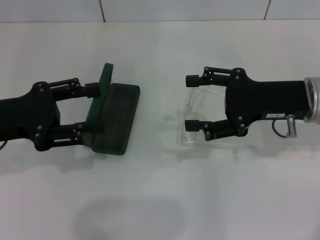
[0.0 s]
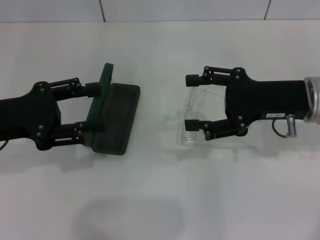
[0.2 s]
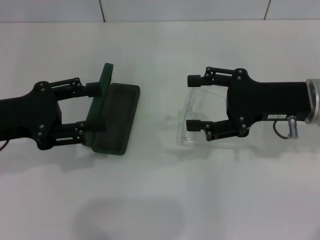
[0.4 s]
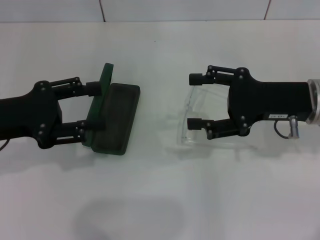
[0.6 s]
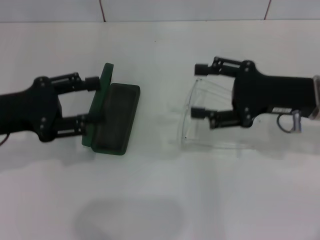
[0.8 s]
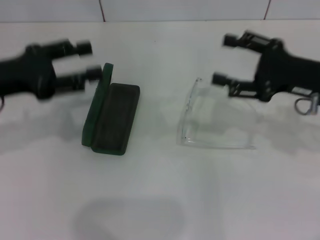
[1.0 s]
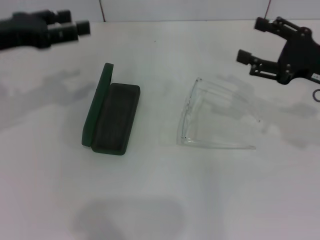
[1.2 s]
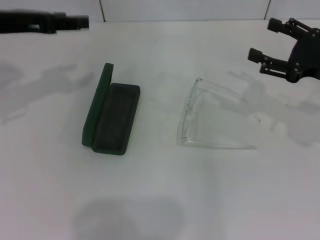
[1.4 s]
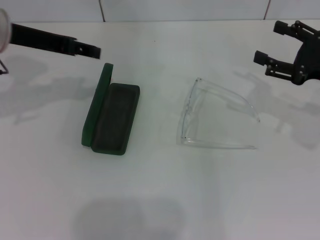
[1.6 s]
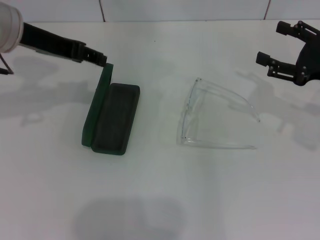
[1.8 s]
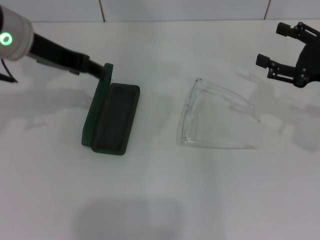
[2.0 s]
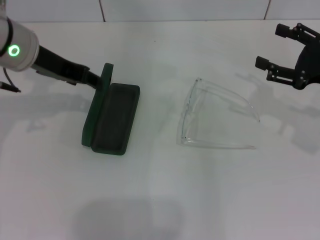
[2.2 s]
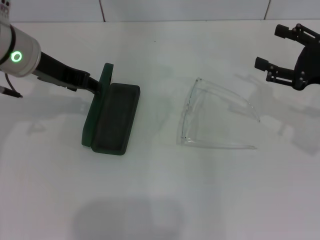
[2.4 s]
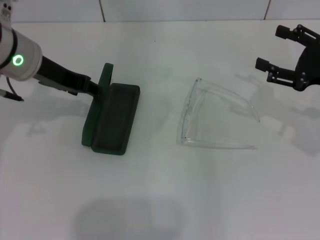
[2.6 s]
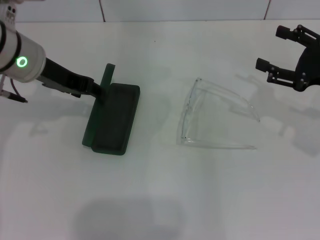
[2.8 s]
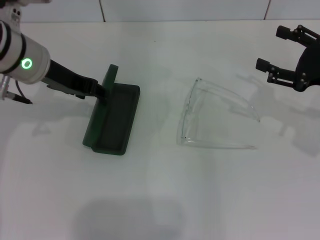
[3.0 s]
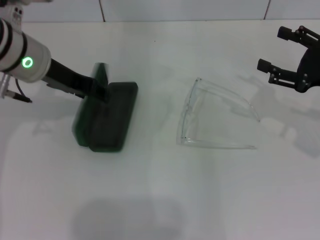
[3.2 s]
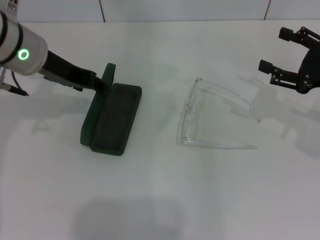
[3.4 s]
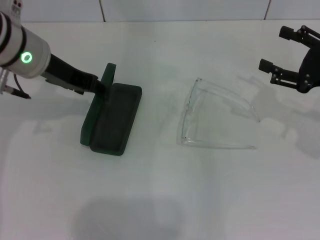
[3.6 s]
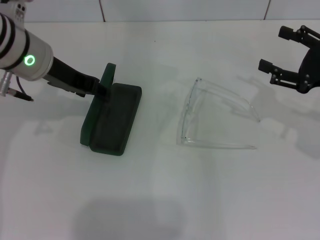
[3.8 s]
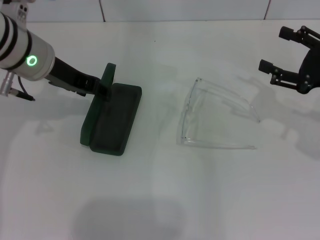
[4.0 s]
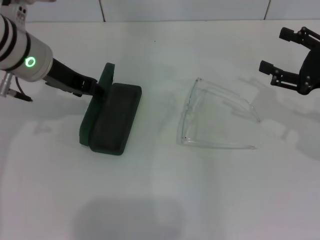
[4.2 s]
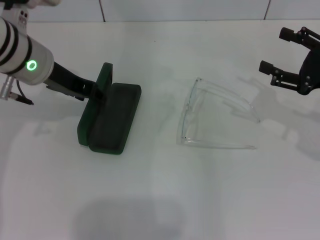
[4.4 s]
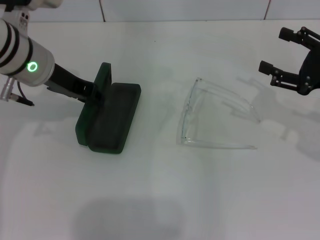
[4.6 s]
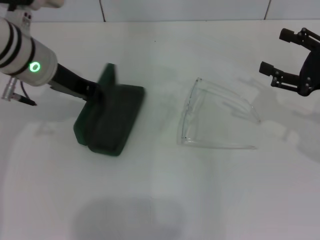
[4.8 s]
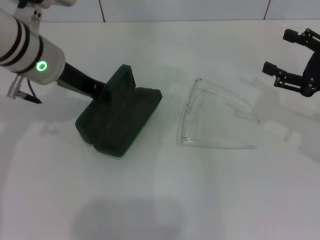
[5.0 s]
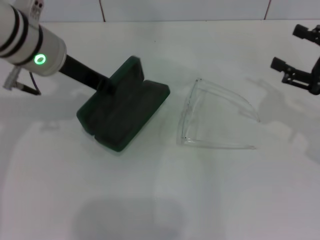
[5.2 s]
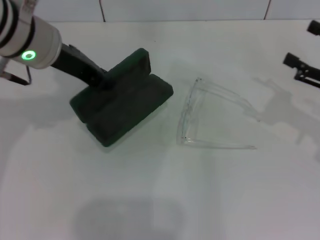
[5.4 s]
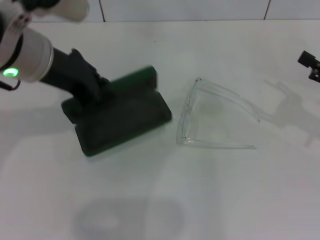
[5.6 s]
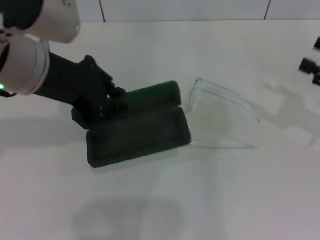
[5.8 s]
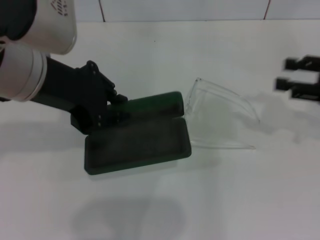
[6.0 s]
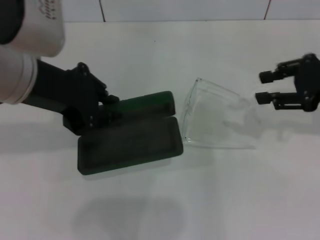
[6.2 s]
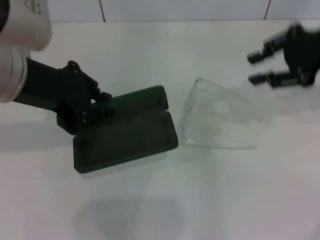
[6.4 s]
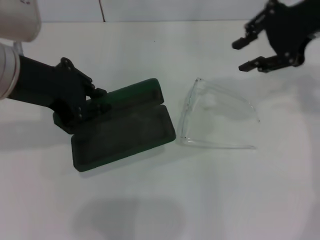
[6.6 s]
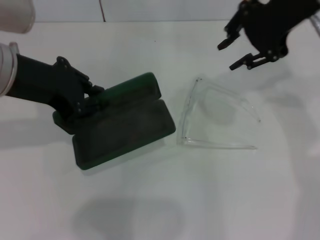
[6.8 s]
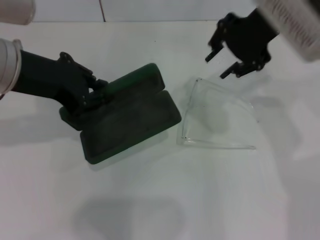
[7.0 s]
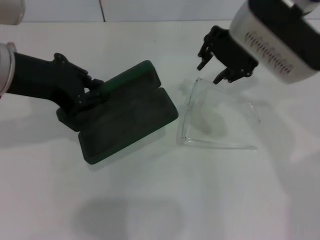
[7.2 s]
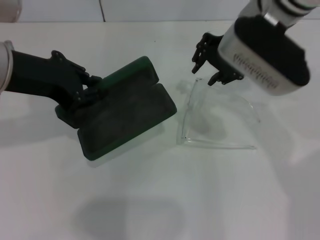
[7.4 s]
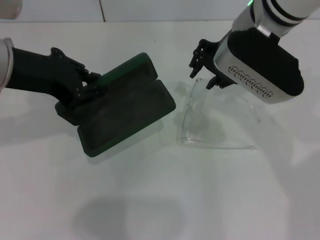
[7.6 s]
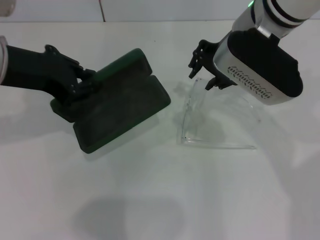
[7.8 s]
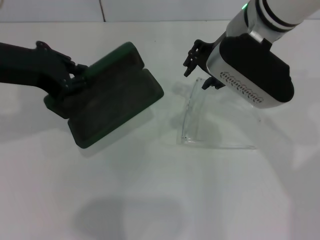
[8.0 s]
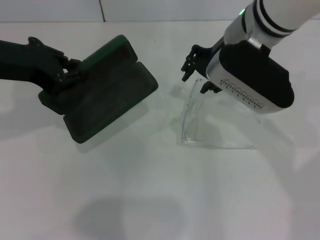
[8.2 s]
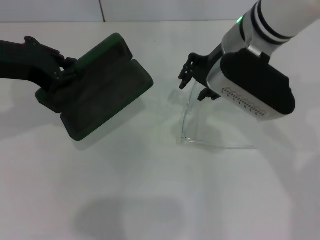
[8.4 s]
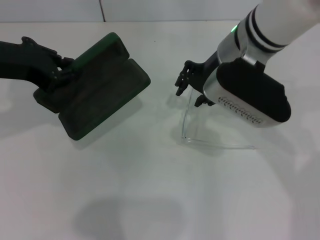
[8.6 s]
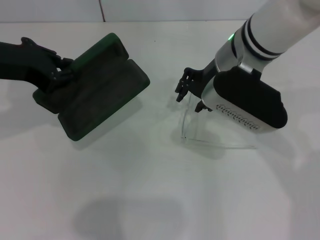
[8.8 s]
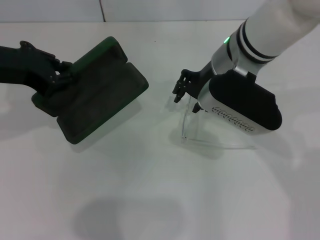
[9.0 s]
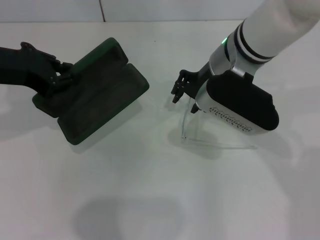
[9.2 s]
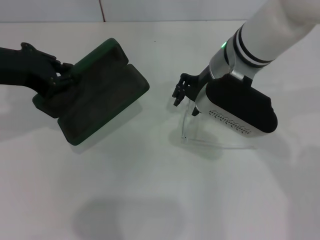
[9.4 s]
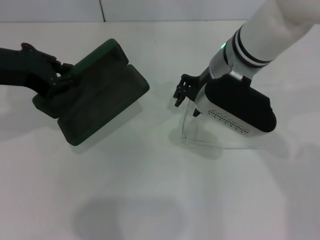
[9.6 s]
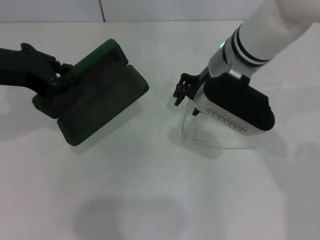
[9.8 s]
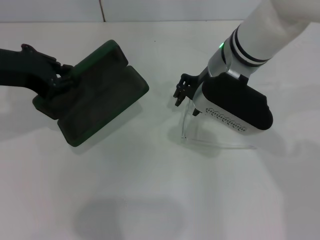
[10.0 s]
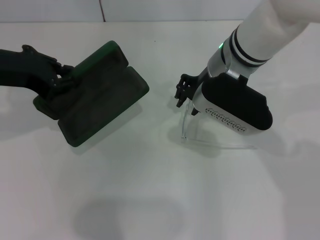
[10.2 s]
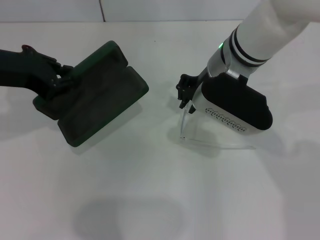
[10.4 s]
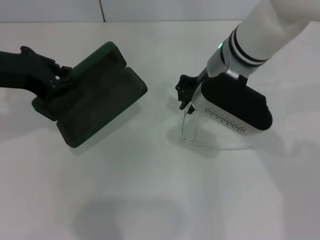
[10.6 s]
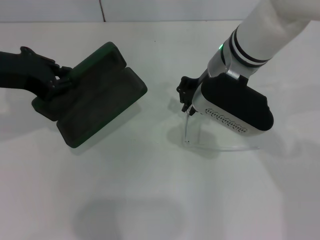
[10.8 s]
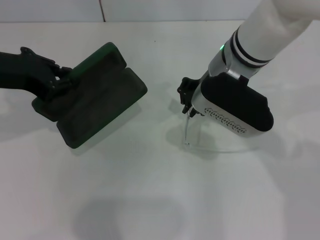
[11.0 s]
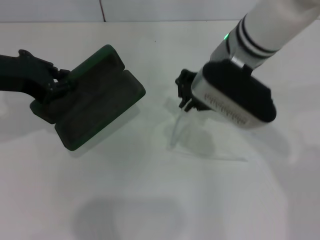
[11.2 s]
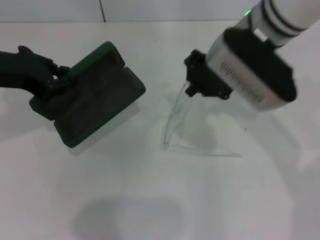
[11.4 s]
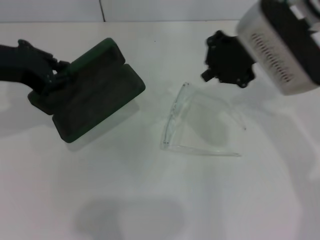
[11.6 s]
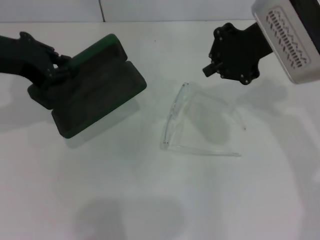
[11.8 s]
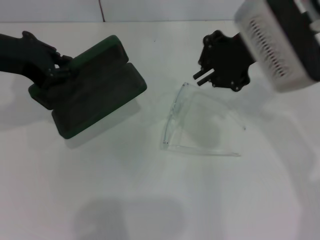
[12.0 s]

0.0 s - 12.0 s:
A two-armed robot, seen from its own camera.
Step, 0.0 s - 4.8 s: Grab the glasses case with your left hand.
0.0 s - 1.6 s: The right gripper travels to the right by approximately 10 cm, while the left gripper heads forward, upward and to the right, covering some 15 cm.
1.6 s - 3.0 s: The left gripper moves some 5 cm.
3.0 s - 4.4 s: There are only small adjustments of the grippers.
4.4 s - 6.0 s: The left gripper is displaced backward and upward by approximately 10 cm, and closes up.
6.0 s - 7.6 s: The right gripper travels to the left by roughly 25 cm, and closes up. Meanwhile the left gripper changes place by roughly 5 cm.
7.6 s - 9.0 s: The right gripper changes place by roughly 5 cm.
9.0 s - 10.4 s: The grippers stay close to where they were, moving slightly.
10.4 s - 12.0 s: The right gripper travels upward and to the right by about 10 cm.

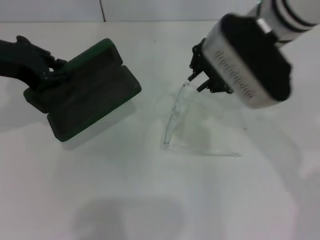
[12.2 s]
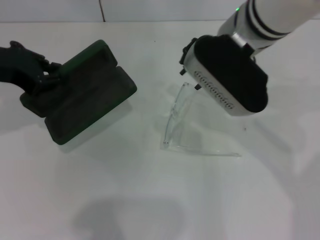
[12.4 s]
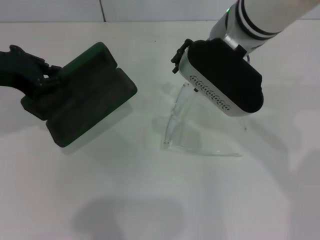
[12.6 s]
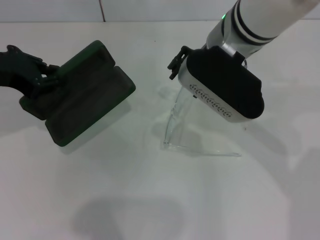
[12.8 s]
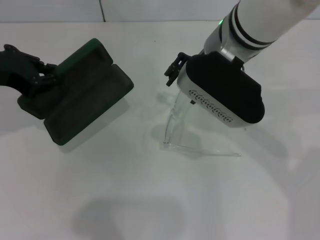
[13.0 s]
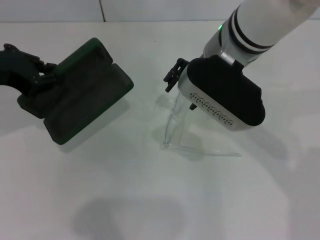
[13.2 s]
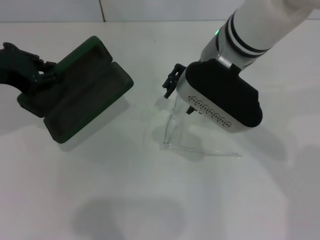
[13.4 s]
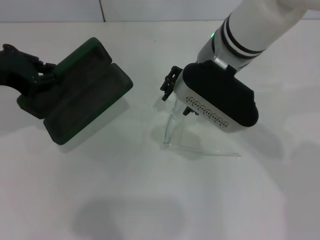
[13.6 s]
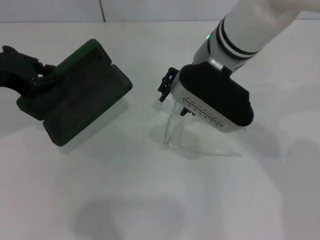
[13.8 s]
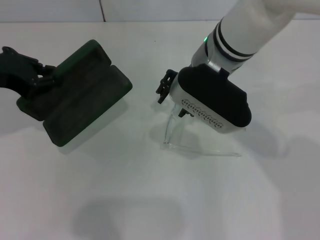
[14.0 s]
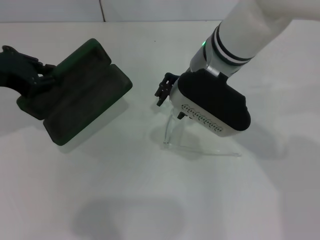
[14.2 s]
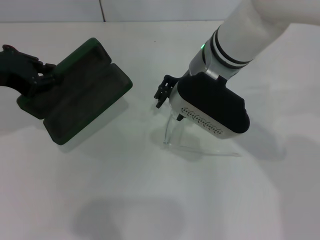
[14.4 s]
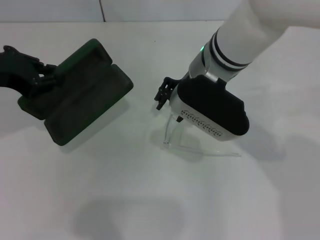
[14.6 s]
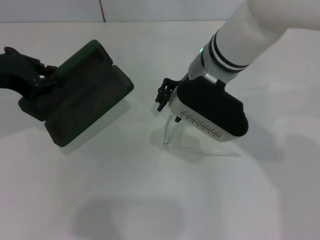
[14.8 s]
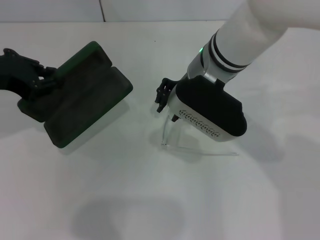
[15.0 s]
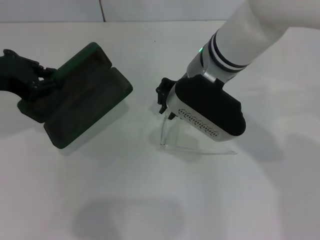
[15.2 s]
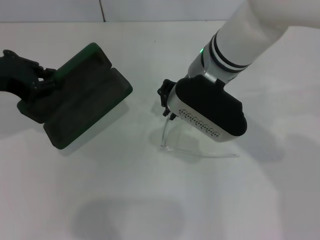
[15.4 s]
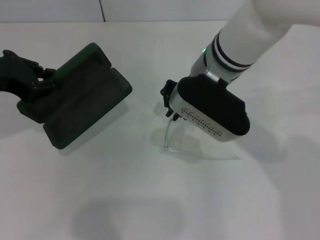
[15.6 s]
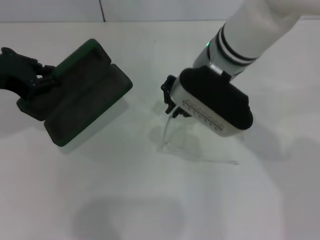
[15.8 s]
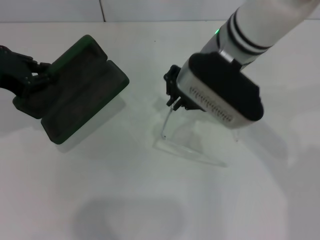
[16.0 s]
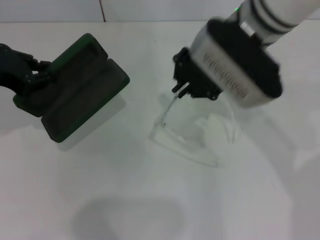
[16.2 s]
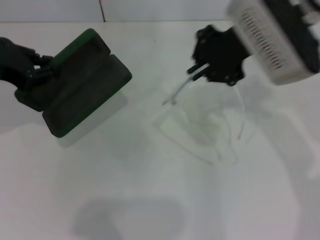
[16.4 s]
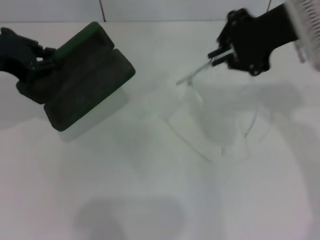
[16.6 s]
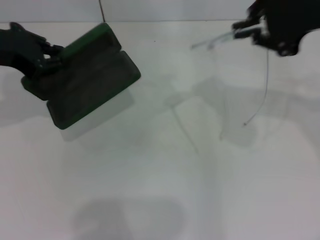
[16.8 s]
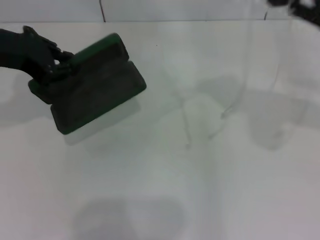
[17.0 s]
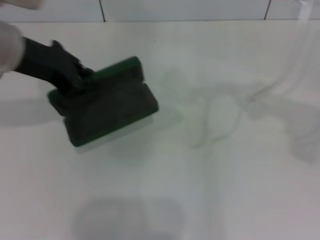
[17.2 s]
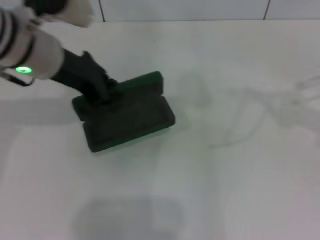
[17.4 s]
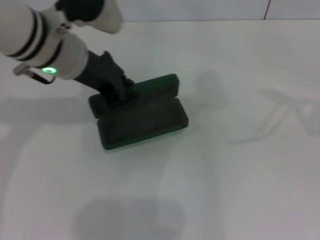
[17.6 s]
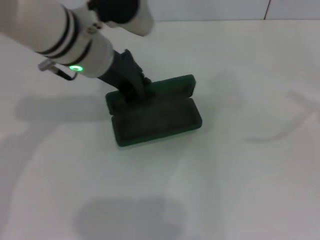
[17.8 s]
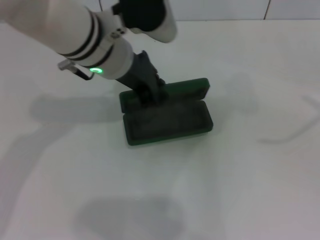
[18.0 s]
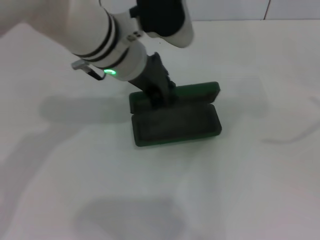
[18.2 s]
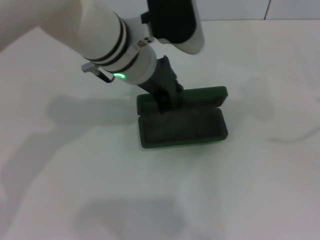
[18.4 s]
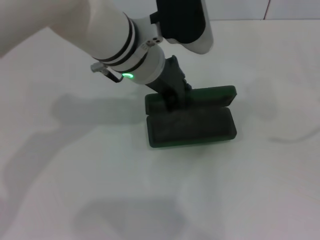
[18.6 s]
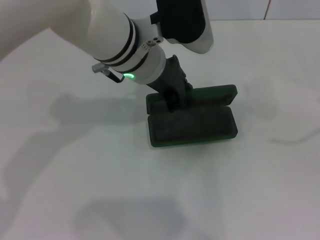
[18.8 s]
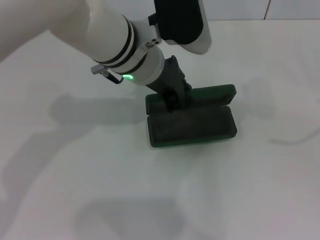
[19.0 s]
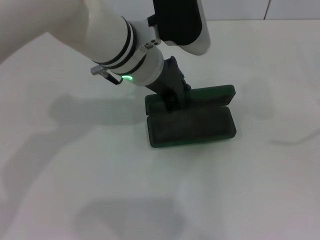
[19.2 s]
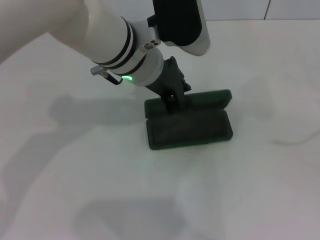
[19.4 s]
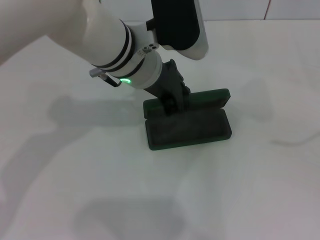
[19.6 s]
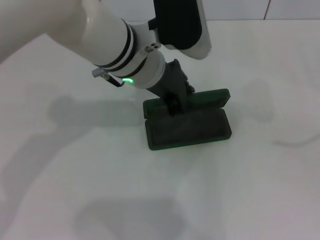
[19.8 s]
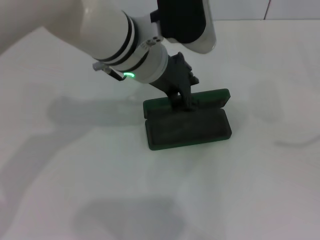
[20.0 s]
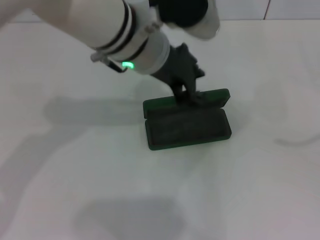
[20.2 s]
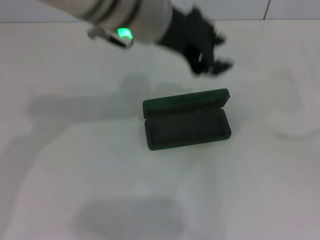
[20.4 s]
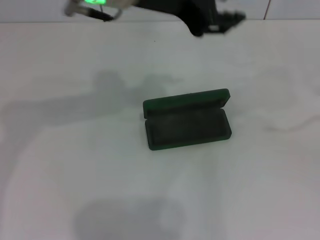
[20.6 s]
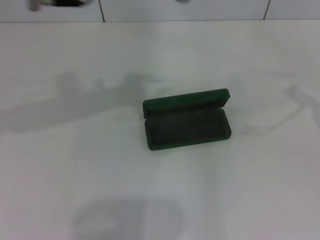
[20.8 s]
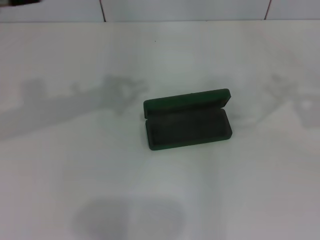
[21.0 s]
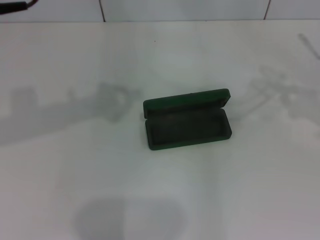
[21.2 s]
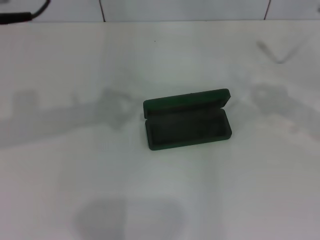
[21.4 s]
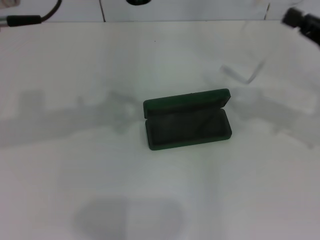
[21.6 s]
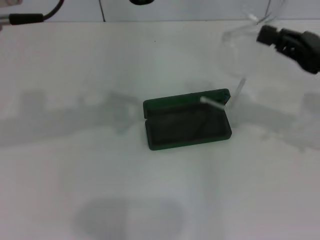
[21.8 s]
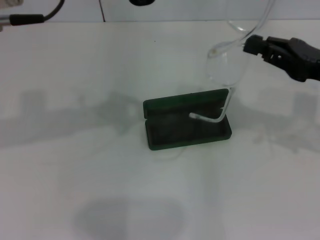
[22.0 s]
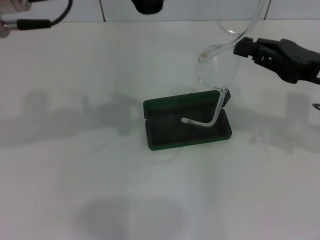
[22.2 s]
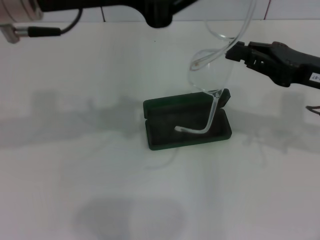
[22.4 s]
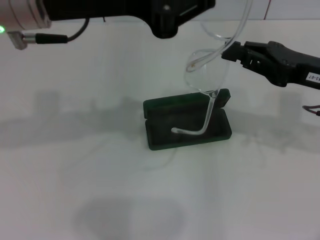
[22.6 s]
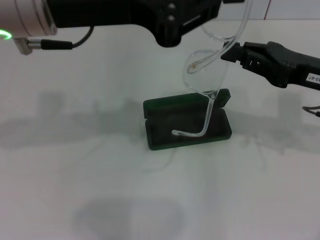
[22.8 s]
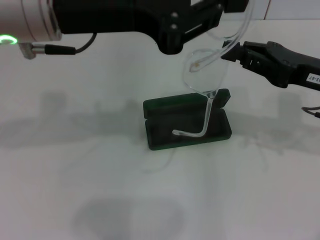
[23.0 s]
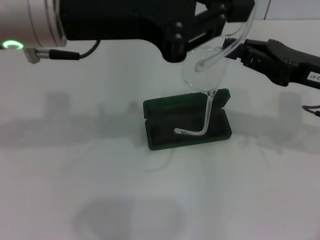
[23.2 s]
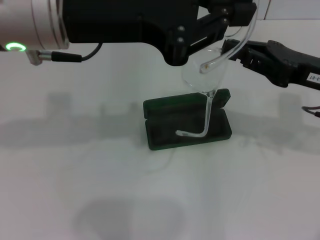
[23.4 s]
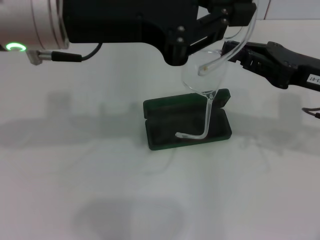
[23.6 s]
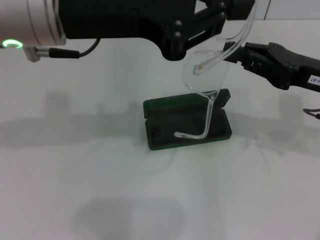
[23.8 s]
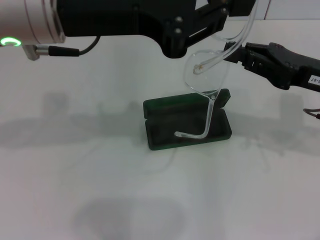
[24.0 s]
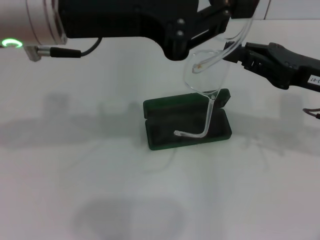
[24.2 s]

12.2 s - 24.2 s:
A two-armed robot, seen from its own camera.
Step, 12.2 s - 15.6 s: Grab the eyeglass frame with your right hand.
Step, 16.0 s - 20.0 s: Place the glasses case in the center of the table with your left hand.
12.2 s - 13.8 s: The right gripper travels downward by approximately 5 cm, and opens up.
13.8 s - 15.2 s: The grippers make only small movements.
15.2 s - 16.6 s: The right gripper moves to the right and upward, some 15 cm, and closes its fingers.
16.6 s - 18.2 s: The left gripper shifts roughly 20 cm to the right; the right gripper moves to the right and backward, some 35 cm.
18.2 s - 19.8 s: There are only small adjustments of the grippers.
19.8 s - 21.2 s: The right gripper heads forward and to the left, covering about 15 cm; the left gripper shifts about 20 cm upward, to the left and backward.
21.2 s - 22.6 s: The right gripper goes some 15 cm to the left.
22.6 s - 24.2 s: The grippers make only small movements.
